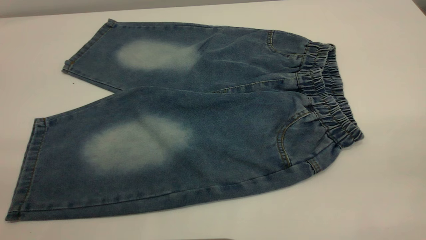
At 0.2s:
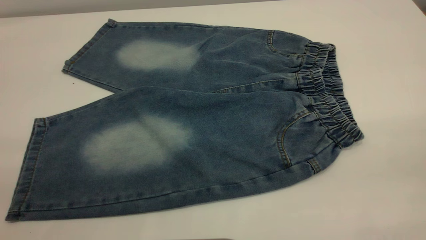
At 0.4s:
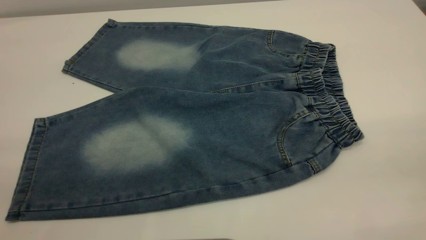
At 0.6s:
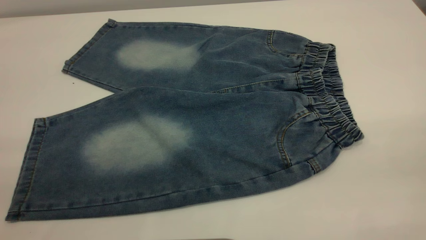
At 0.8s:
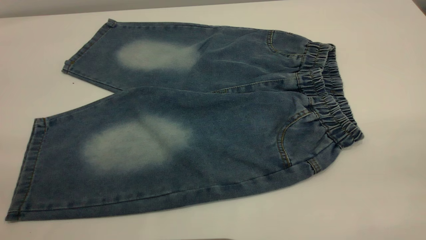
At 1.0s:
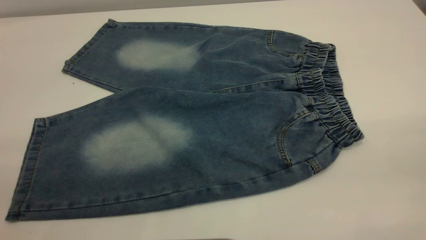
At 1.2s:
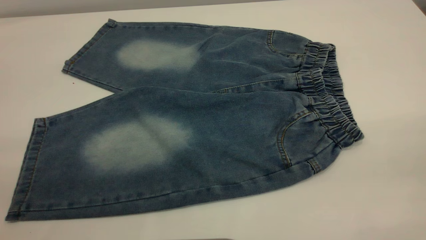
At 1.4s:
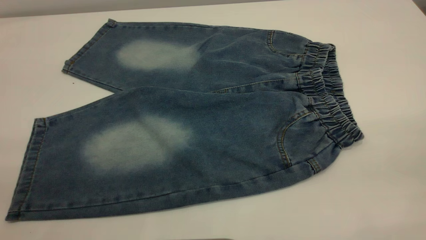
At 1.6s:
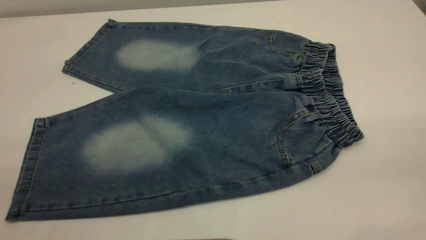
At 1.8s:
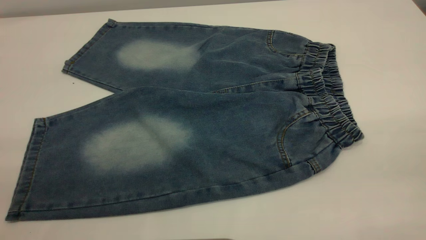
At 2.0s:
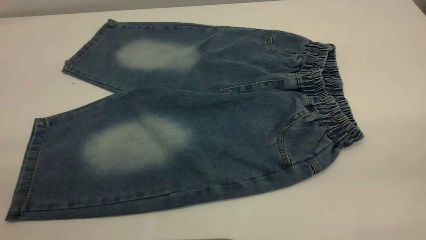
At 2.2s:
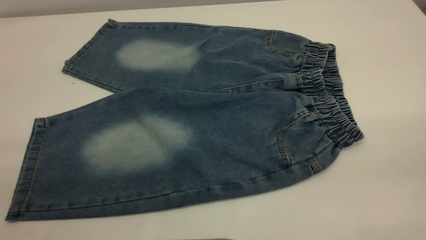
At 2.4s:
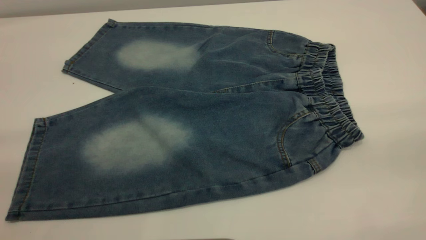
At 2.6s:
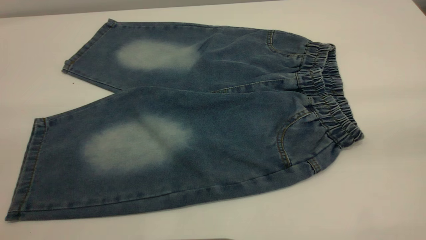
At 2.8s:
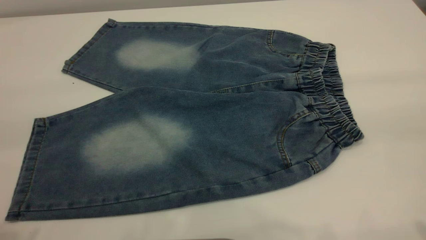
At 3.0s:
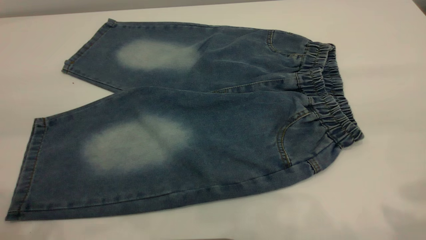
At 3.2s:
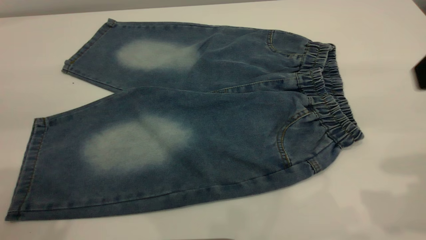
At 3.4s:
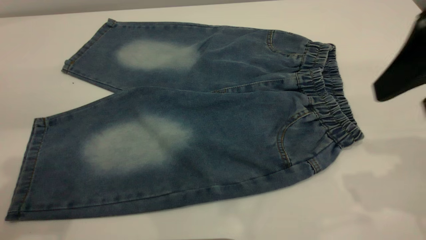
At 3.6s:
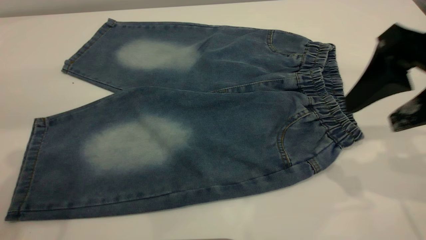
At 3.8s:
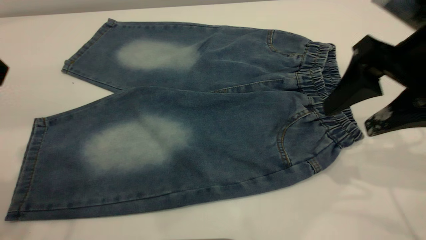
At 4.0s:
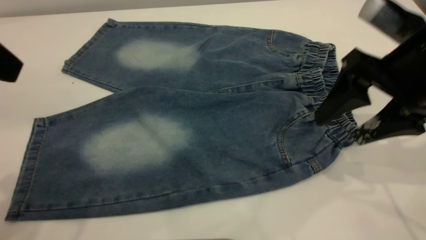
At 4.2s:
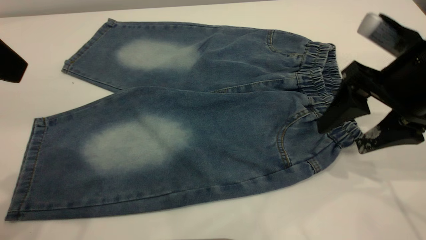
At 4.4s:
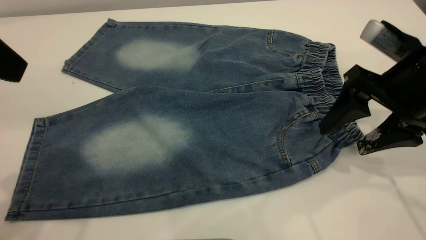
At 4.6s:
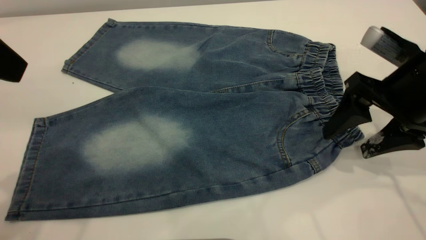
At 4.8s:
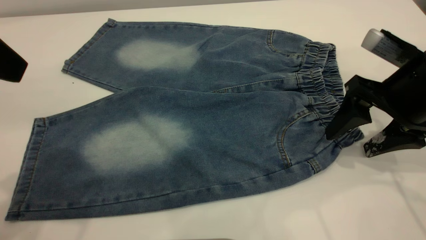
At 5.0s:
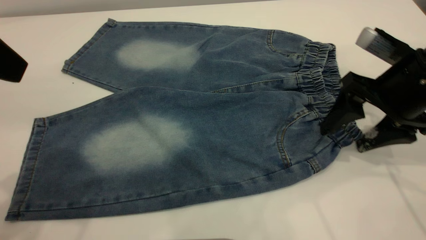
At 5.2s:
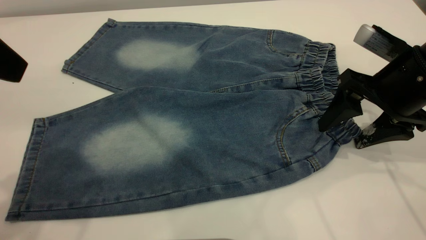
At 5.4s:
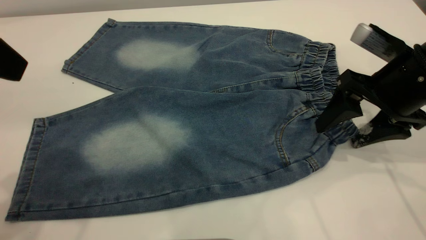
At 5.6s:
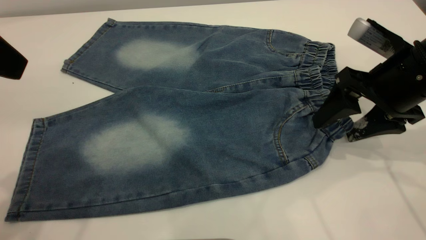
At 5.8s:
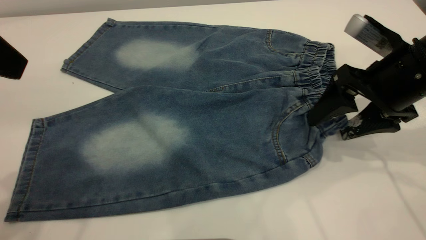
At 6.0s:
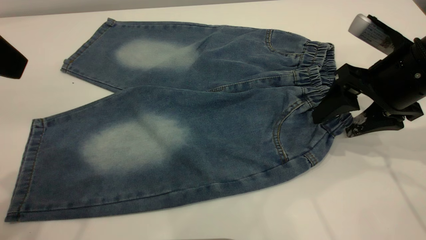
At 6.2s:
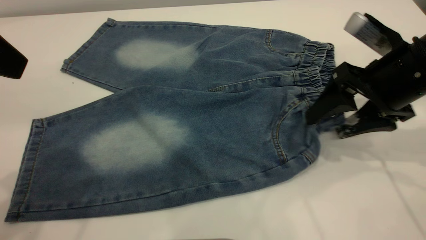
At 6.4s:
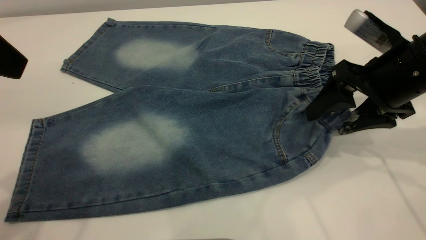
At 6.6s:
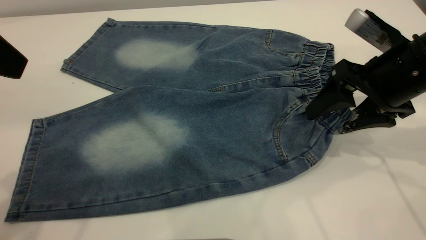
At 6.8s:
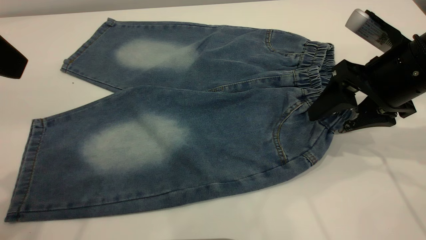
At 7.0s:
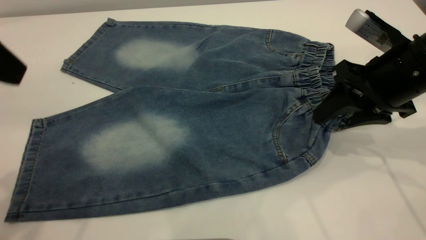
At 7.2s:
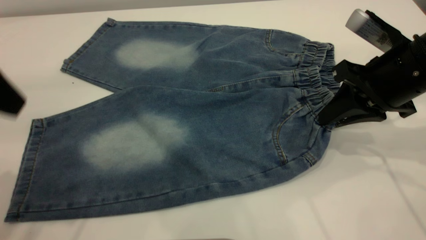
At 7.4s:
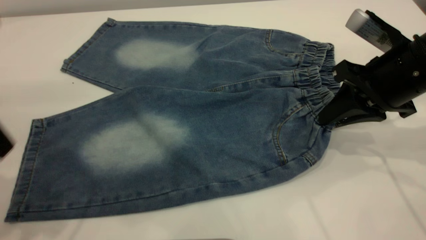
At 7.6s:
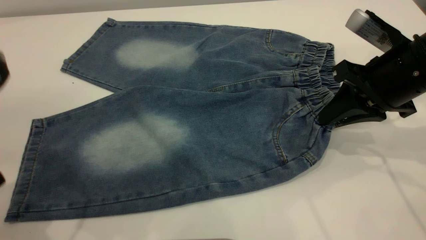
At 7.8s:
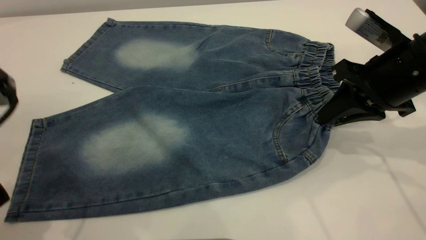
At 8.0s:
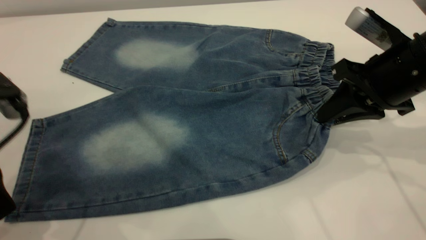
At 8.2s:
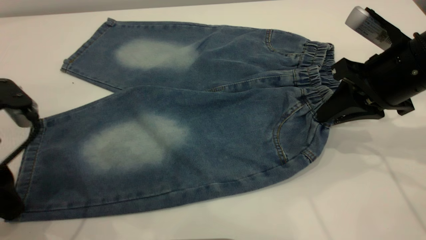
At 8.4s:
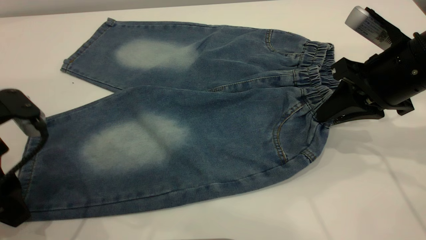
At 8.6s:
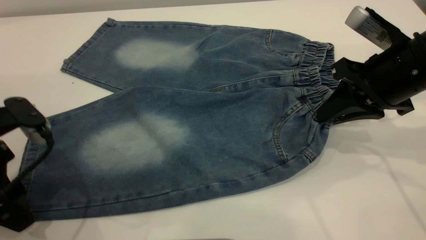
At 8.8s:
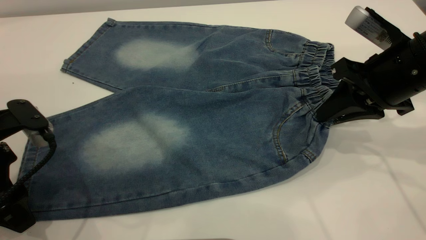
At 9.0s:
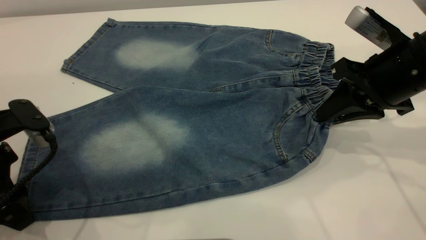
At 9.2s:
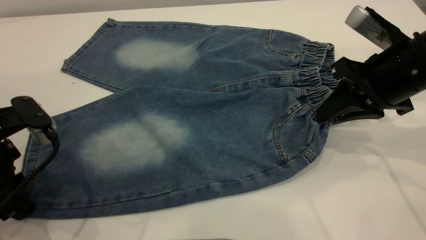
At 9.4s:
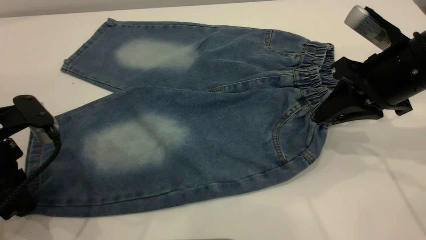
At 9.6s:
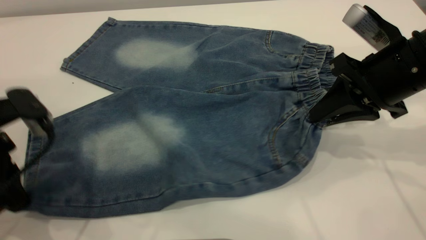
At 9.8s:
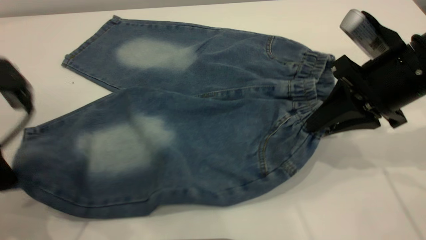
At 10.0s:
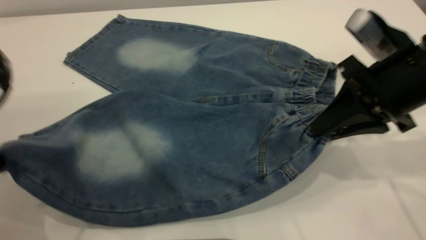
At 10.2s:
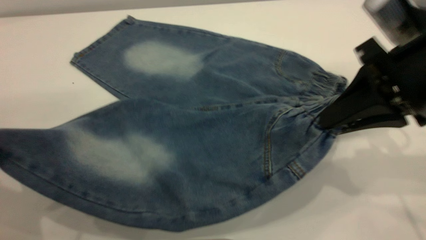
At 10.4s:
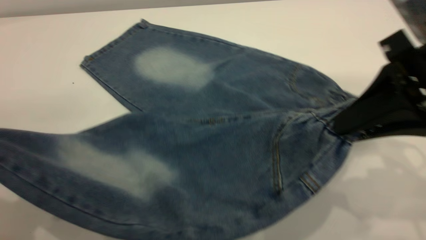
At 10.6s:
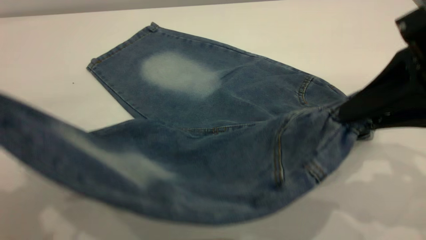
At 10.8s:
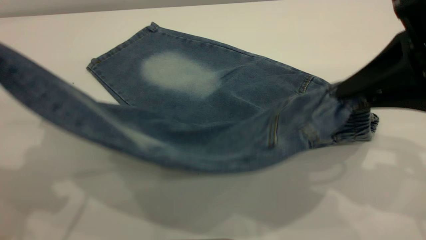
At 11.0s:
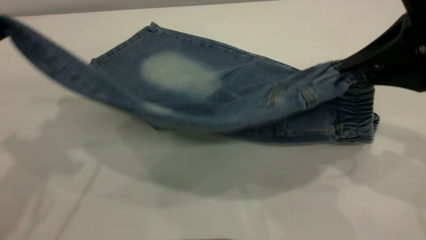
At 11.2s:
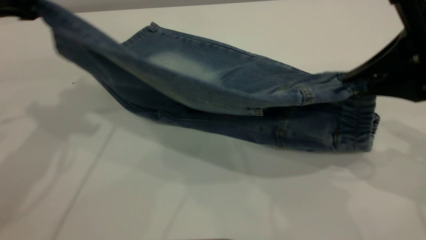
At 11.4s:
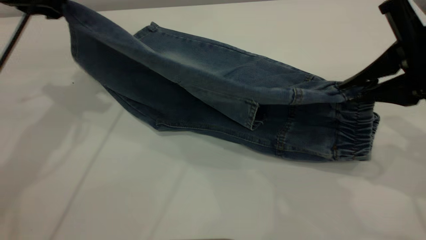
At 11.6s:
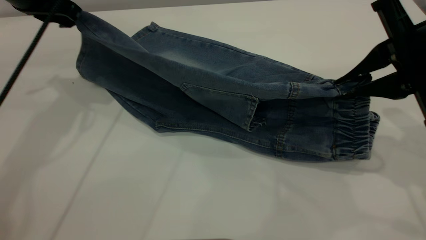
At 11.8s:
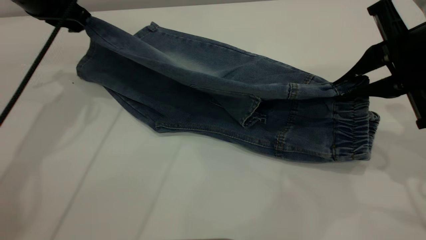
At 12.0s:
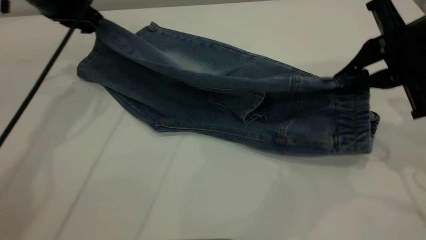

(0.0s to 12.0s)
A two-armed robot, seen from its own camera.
0.0s - 1.6s: Both grippers stay about where they are.
3.0s - 4.4s: The right gripper goes approximately 20 cm downward and forward, while the left gripper shifts some 10 cm forward and downward.
4.4s - 6.0s: The grippers stay close to where they were, moving slightly.
6.0s - 7.6s: The left gripper is displaced downward by approximately 10 cm, while the right gripper closes.
7.6s - 9.0s: The left gripper goes some 10 cm downward.
9.0s - 10.4s: The left gripper travels upward by about 15 cm, and closes its fingers. The right gripper travels backward and upward by about 10 cm.
10.4s - 12.0s: The right gripper goes approximately 10 cm forward. Meanwhile the left gripper shifts roughly 25 cm forward.

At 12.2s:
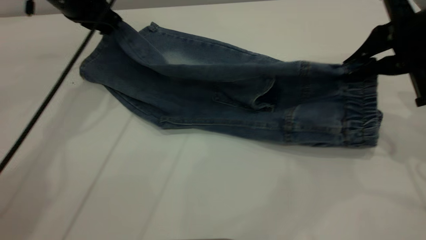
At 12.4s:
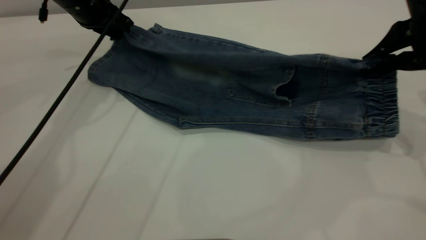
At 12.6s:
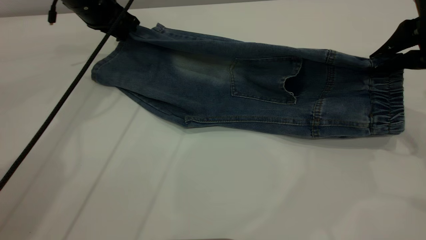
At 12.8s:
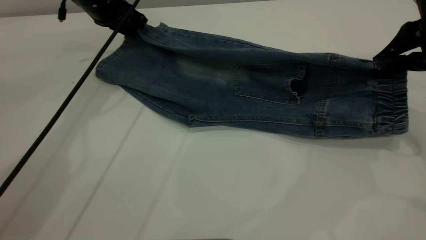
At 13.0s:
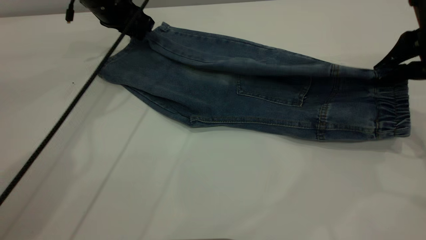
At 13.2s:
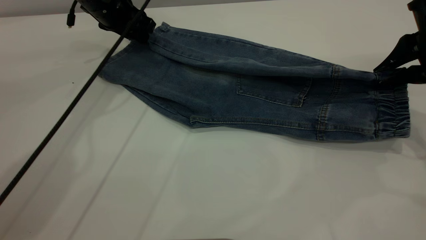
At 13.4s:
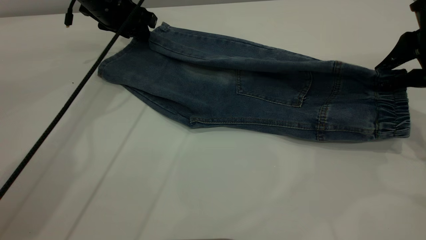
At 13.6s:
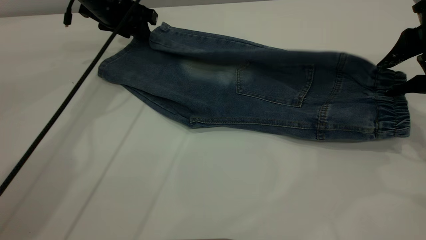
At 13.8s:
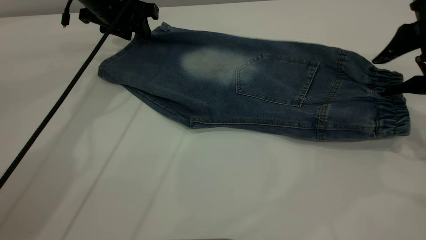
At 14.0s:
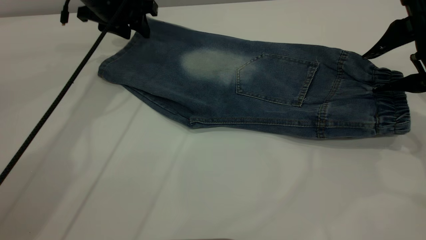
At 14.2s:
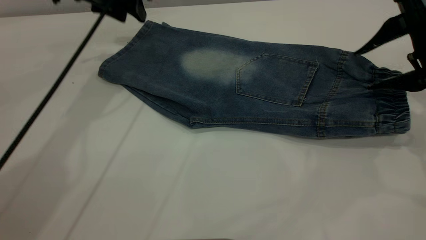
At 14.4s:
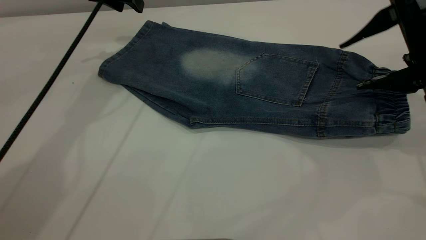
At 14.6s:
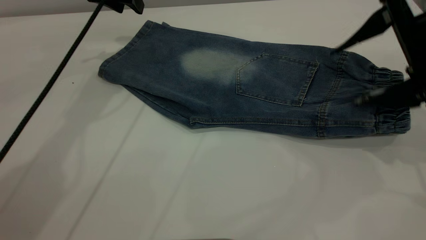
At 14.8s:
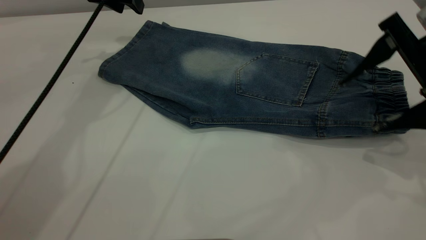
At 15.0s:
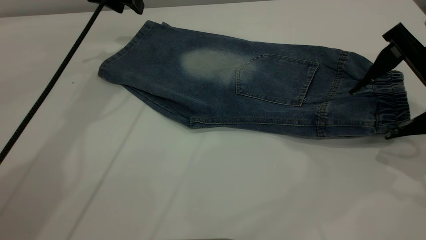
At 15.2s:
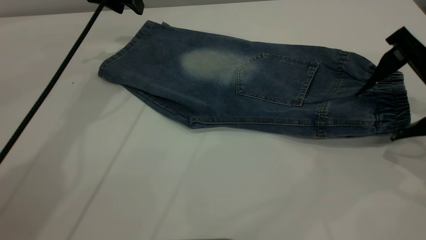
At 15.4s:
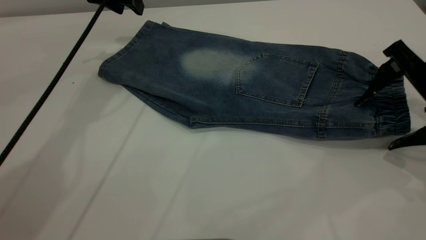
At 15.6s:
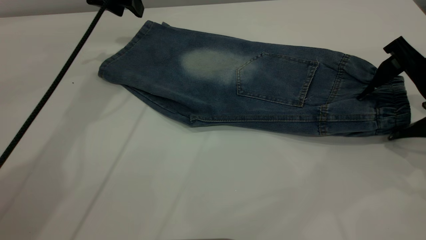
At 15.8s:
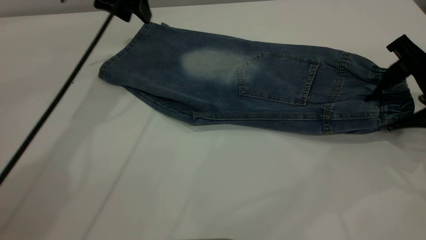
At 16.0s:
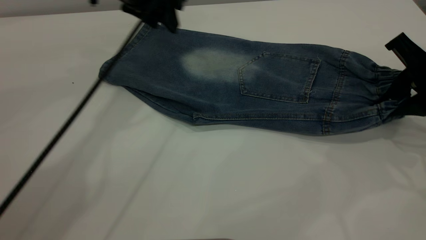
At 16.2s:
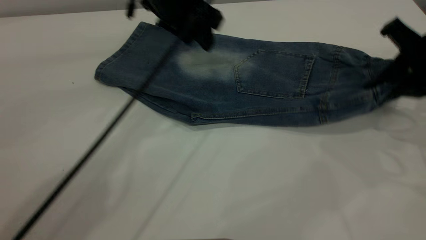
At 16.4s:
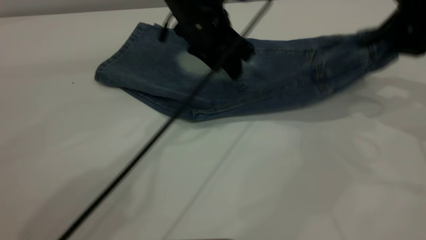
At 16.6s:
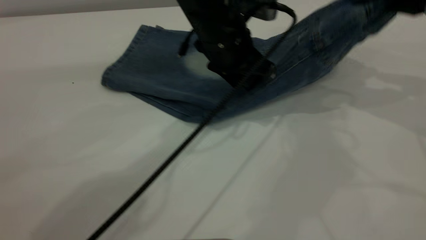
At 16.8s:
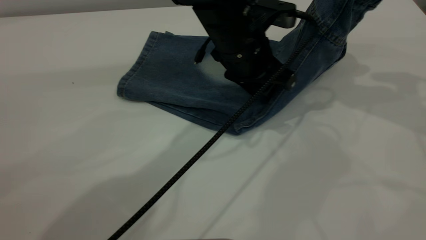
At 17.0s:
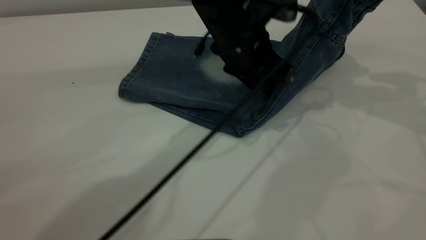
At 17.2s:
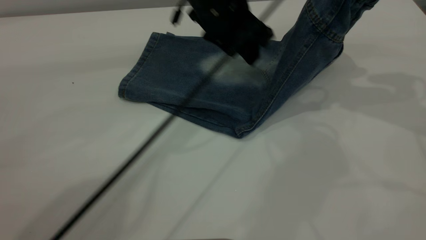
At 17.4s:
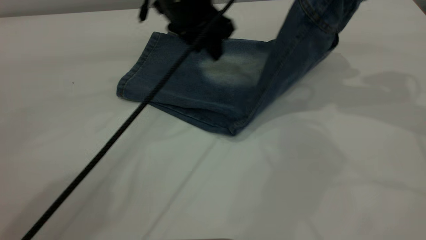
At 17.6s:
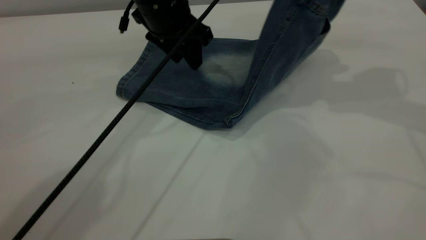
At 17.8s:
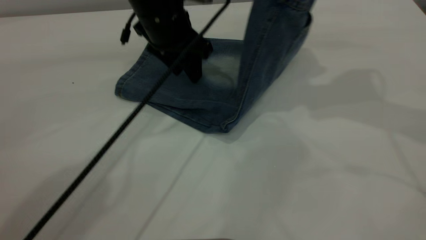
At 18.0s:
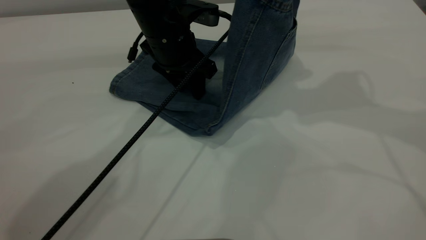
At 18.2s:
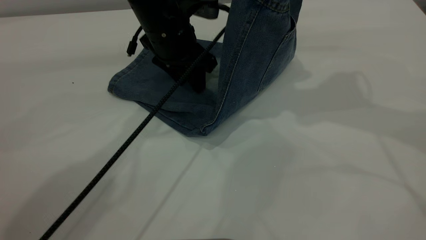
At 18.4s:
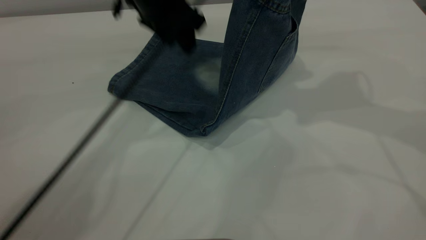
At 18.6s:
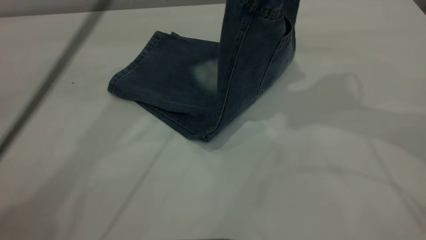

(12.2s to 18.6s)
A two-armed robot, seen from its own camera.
Step, 12.2s - 14.6s: Fold the bottom of the pants upward.
12.2s - 13.8s: The right gripper opens up, while the left gripper ends up approximately 5 cm from where it was, and opens up.
13.8s - 15.4s: The left gripper goes about 5 cm upward. The right gripper opens its fingers.
15.4s - 17.0s: The right gripper travels upward and forward by approximately 15 cm, and closes its fingers; the left gripper goes some 25 cm to the right and backward.
17.0s - 18.6s: The left gripper swings up and down, about 20 cm each way, with 2 reversals, while the right gripper is displaced to the left by about 10 cm.
